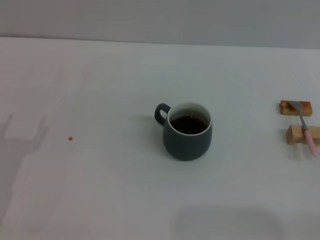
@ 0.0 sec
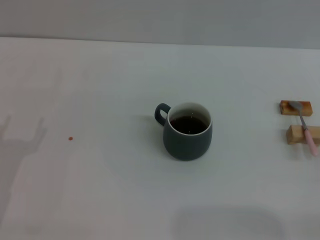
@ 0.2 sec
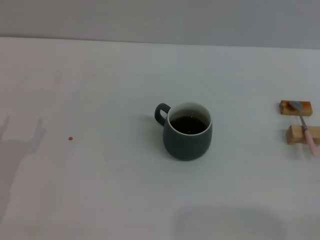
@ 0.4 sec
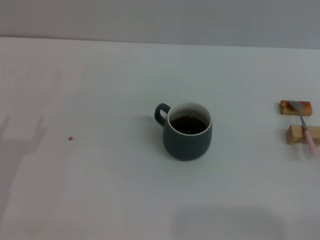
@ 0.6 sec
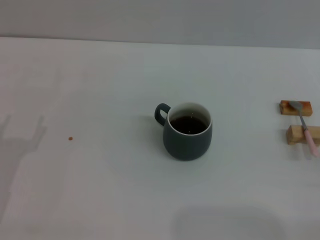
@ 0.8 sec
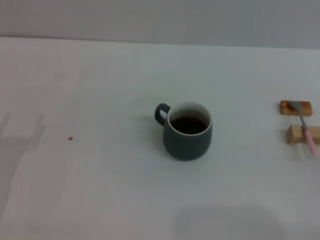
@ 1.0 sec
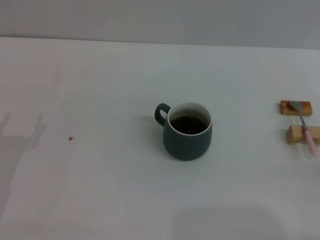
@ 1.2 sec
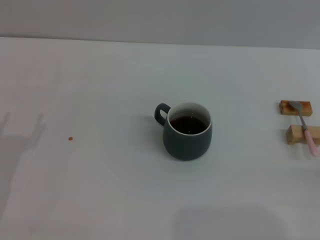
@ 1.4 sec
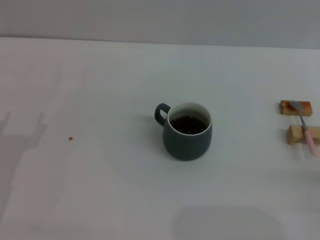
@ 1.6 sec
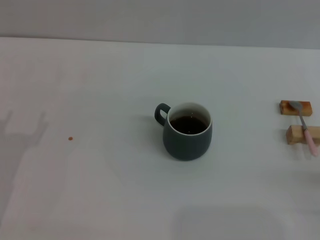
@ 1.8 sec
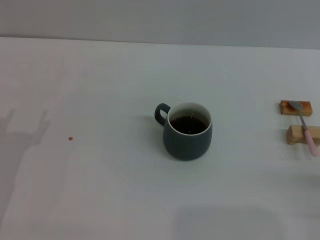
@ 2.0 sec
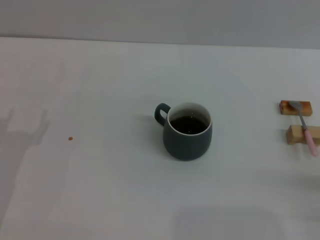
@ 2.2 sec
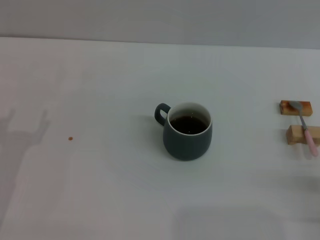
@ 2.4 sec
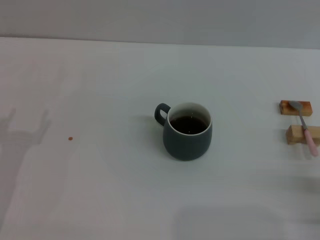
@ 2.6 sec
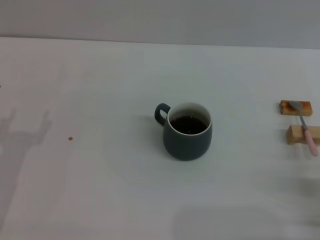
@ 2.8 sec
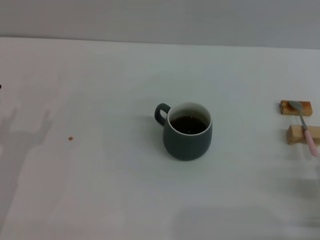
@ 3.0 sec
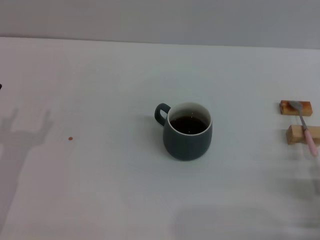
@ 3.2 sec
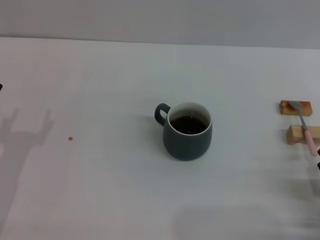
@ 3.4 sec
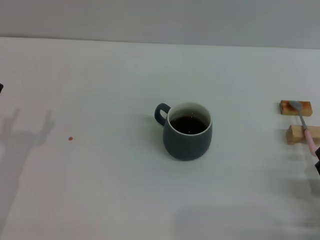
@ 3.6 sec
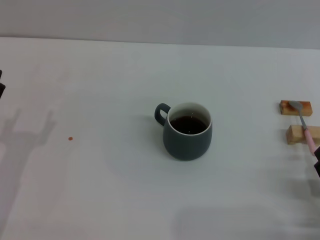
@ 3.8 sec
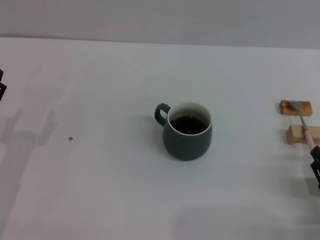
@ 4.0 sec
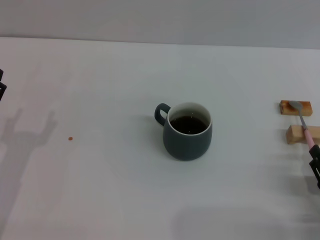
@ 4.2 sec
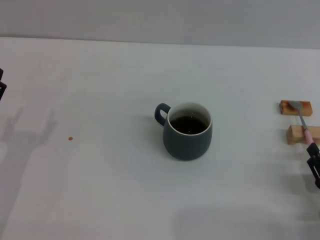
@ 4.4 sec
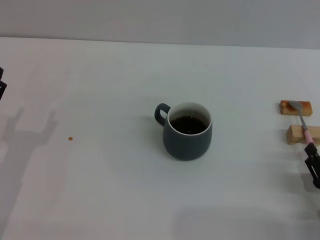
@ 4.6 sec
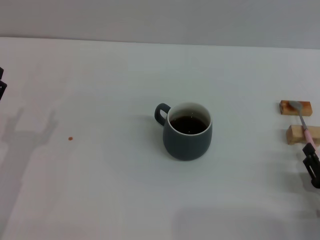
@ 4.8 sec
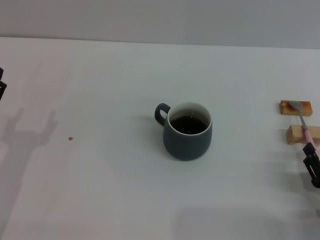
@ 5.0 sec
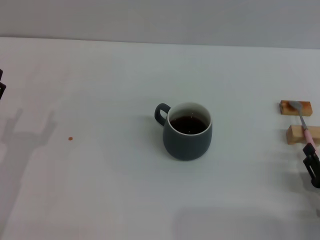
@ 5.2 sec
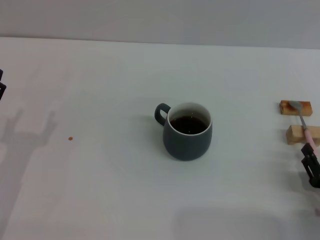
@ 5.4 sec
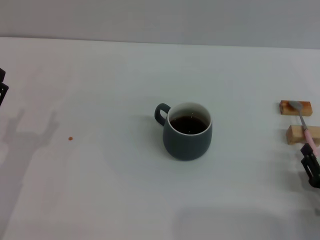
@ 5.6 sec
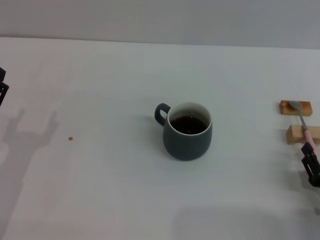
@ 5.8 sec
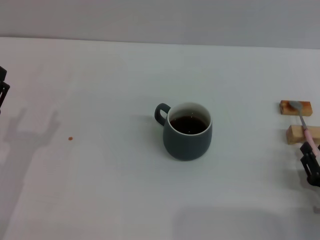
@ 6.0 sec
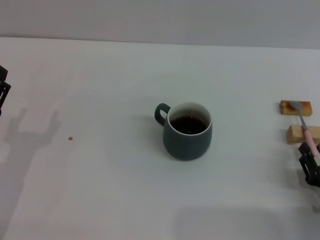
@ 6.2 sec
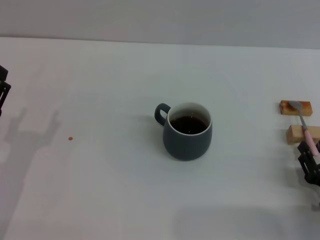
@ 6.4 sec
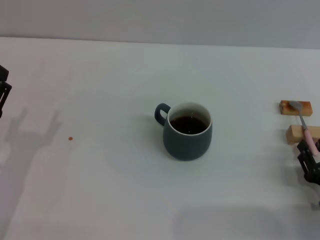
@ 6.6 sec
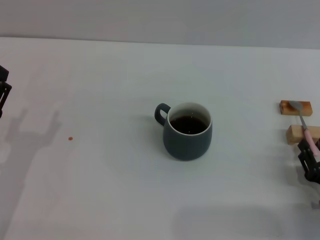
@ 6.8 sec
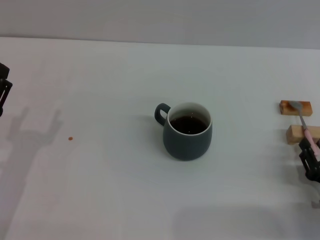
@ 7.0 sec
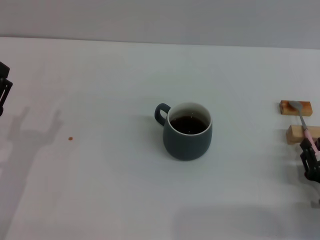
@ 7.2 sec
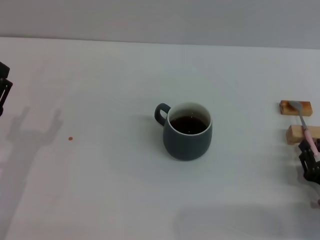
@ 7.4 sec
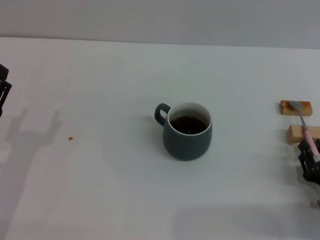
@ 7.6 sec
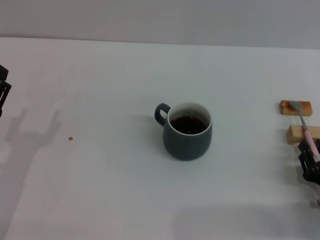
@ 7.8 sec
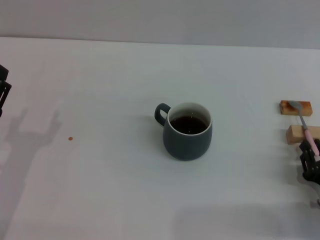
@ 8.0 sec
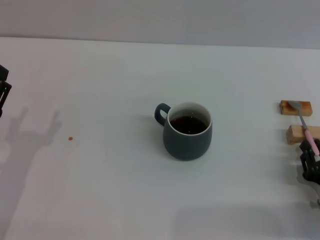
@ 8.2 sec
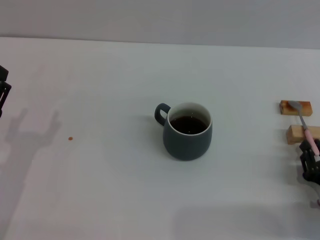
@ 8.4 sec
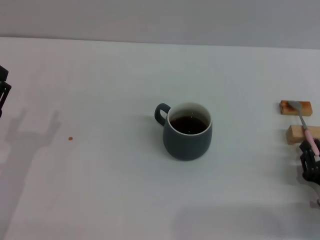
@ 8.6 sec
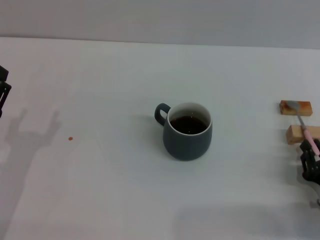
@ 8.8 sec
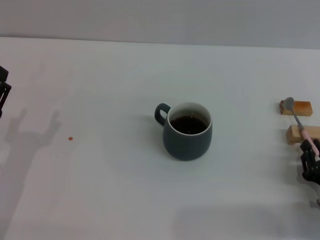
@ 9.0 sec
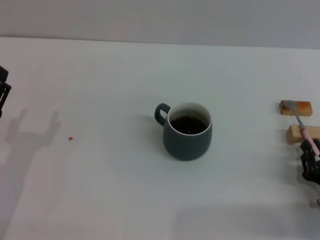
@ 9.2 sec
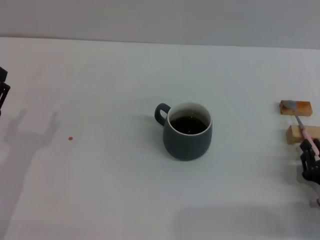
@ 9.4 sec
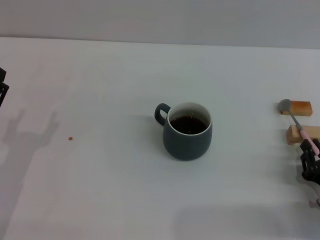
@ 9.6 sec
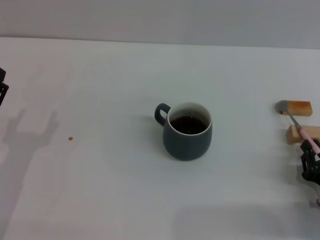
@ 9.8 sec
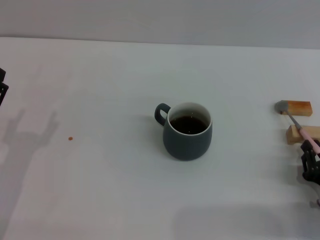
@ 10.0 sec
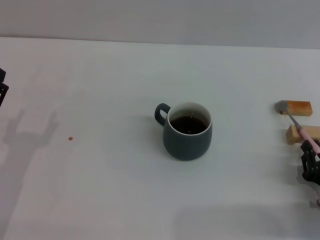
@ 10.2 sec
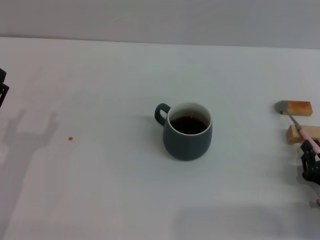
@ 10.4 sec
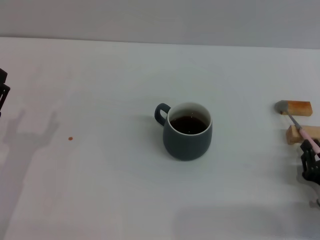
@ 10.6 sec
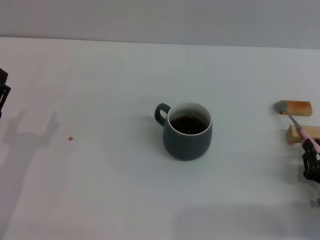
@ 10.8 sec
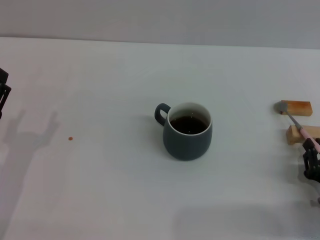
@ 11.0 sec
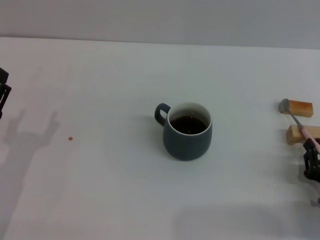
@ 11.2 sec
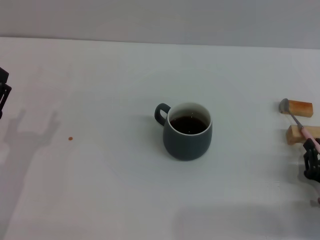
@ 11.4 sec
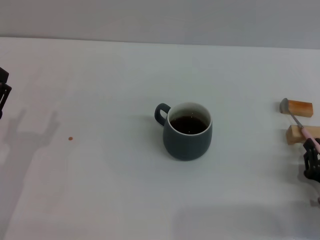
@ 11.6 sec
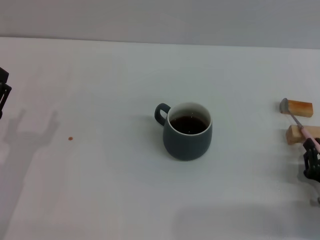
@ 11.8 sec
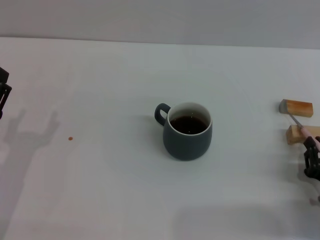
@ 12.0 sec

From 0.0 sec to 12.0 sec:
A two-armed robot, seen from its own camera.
Task of the whole recording: Move the grey cup to the center, lift the pink spoon, stir it three times in the cup, and put the spoon into the cup.
From 4.4 sec to 6.0 sec: Neither gripper changes place.
From 6.0 sec to 12.0 sec: Both grippers stay put.
